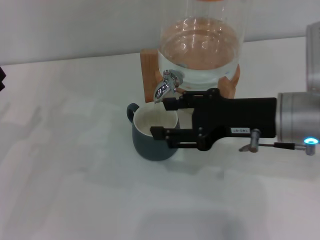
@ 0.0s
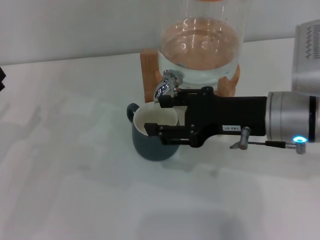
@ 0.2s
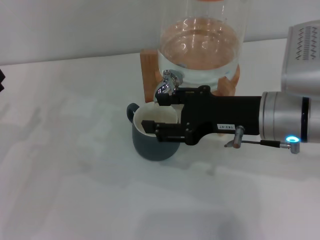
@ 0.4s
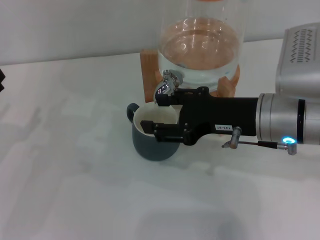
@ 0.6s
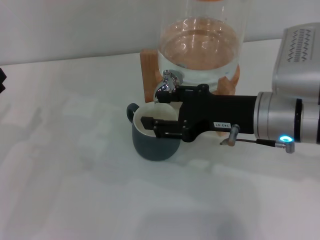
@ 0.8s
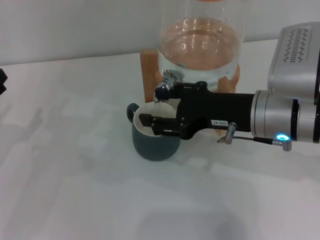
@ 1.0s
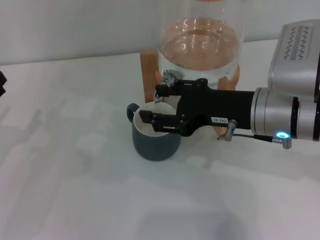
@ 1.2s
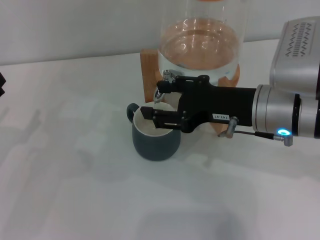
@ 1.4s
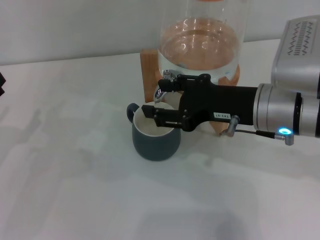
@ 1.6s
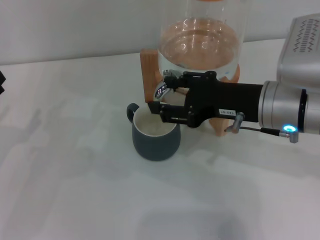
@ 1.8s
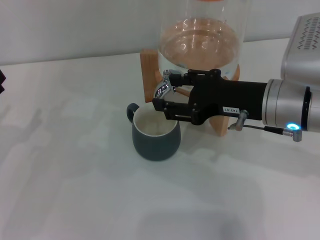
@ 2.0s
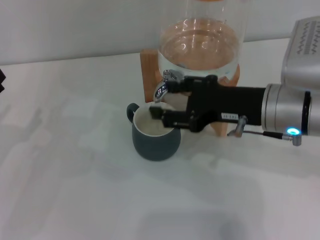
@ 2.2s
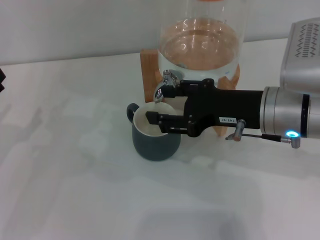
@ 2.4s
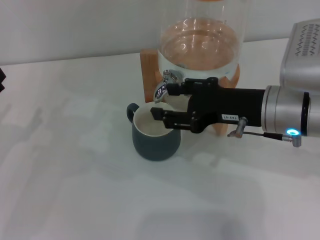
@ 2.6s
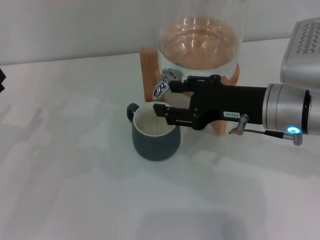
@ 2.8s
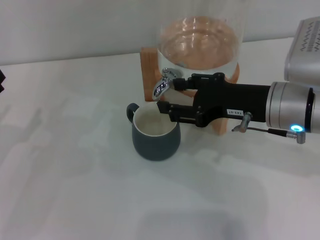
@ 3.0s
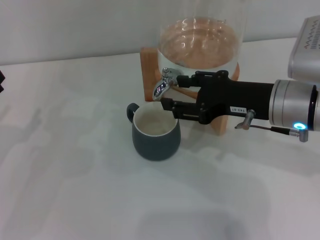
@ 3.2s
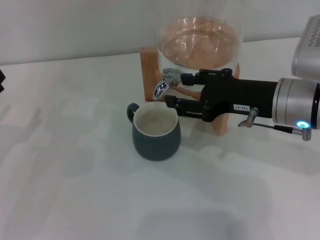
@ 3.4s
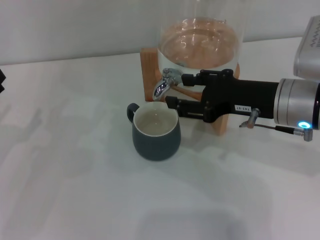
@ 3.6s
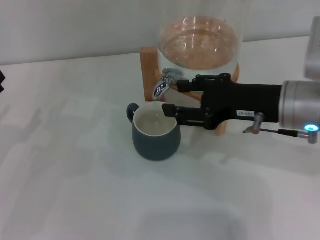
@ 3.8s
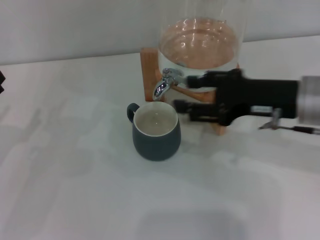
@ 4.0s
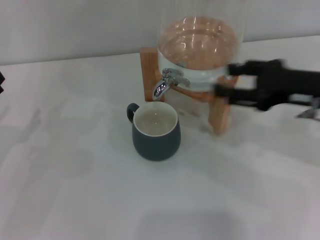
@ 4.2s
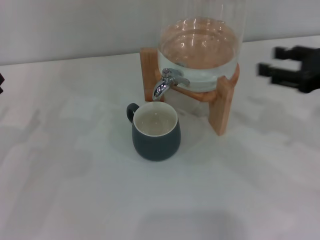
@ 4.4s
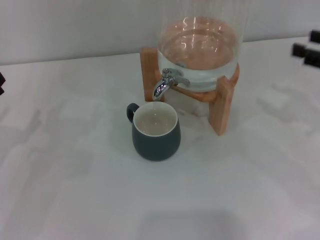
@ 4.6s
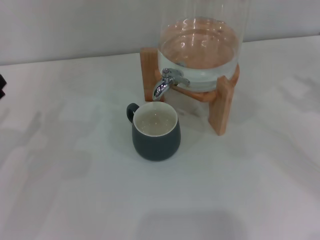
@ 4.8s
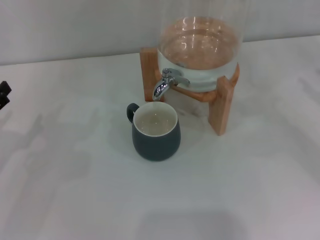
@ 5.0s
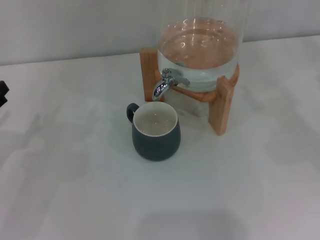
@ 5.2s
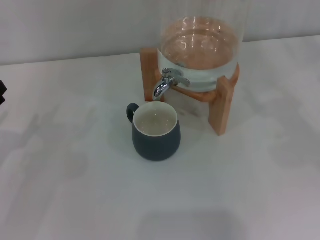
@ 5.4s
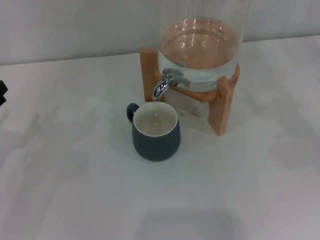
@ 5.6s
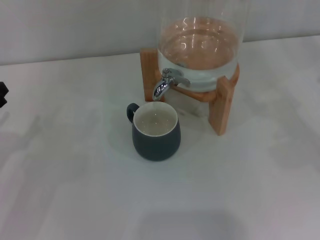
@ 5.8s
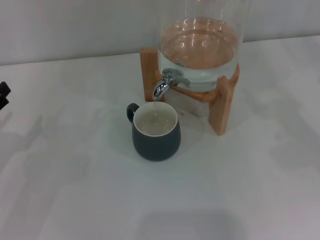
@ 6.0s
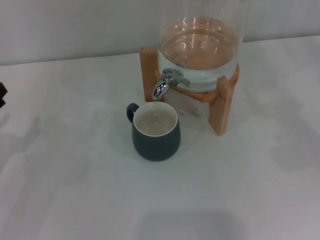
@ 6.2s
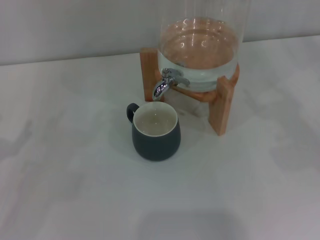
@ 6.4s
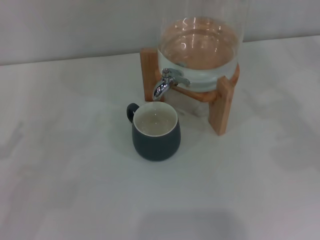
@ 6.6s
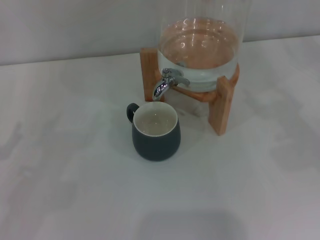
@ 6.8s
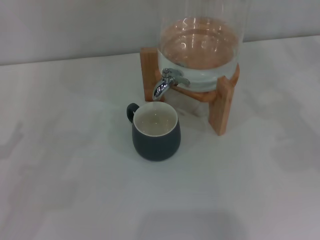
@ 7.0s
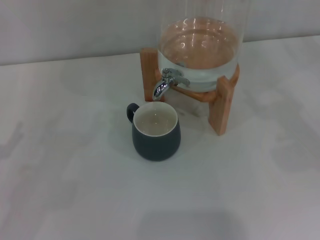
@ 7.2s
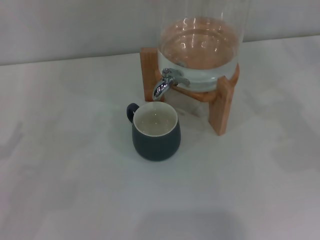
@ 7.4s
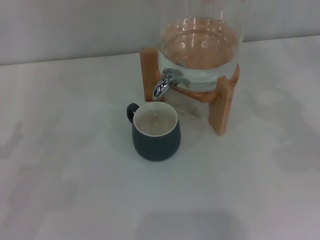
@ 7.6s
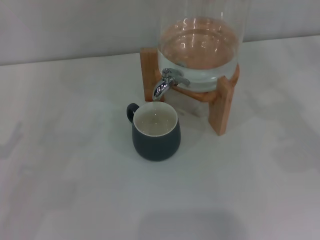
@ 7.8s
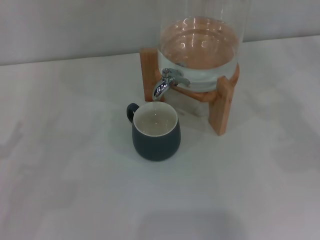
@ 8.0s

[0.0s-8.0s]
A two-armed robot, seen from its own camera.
Task of the whole recording: the left gripper pick up the black cup and place it horizontally under the faucet, the right gripper turn on the faucet to fill the cup, and then turn off the faucet.
Step, 0.0s to 4.0s: Close the dispenser valve with the right gripper.
0.0s to 3.2s: The grippers move only a little.
3.2s to 4.8s: The right gripper goes about 20 cm to the right.
4.8s to 6.4s: The right gripper shifts approximately 5 cm to the right.

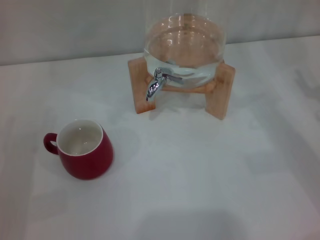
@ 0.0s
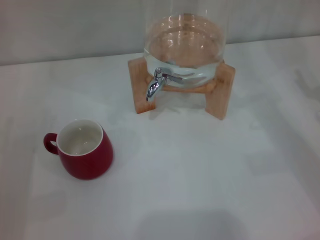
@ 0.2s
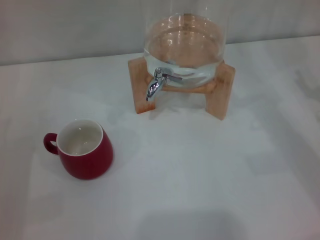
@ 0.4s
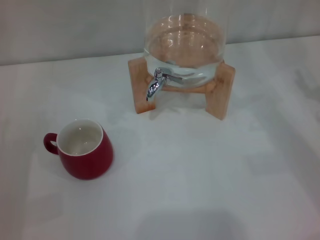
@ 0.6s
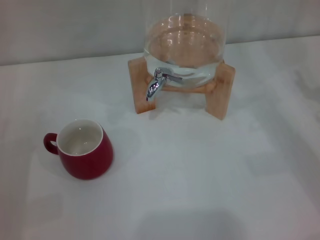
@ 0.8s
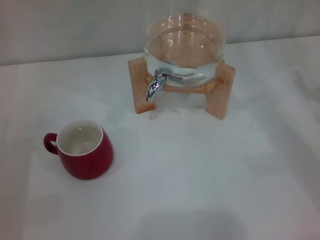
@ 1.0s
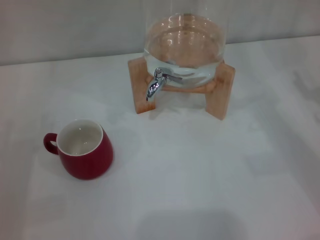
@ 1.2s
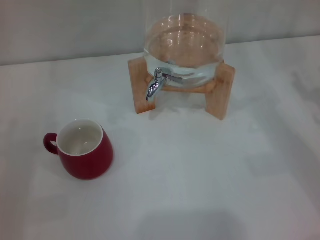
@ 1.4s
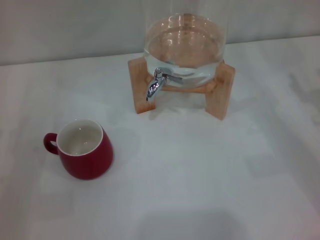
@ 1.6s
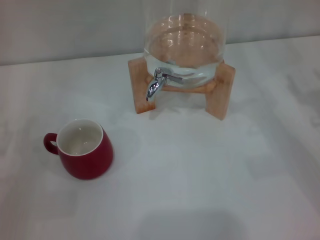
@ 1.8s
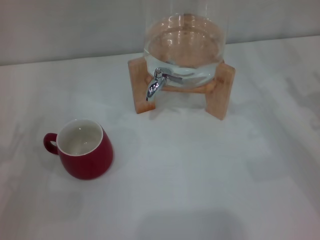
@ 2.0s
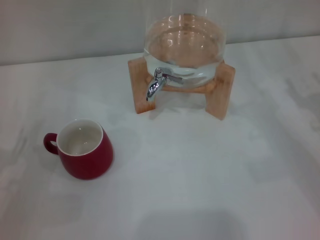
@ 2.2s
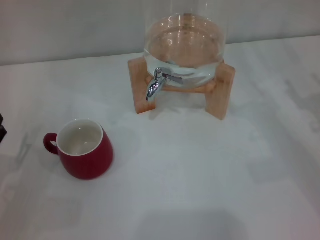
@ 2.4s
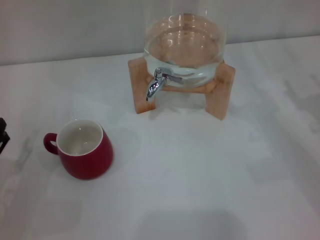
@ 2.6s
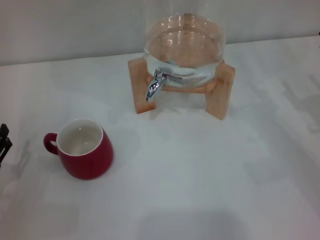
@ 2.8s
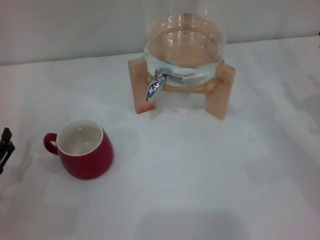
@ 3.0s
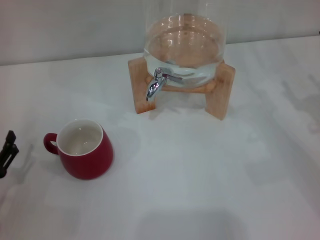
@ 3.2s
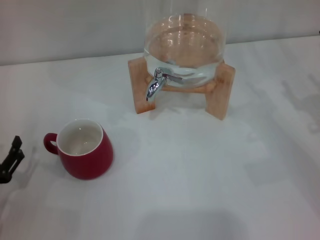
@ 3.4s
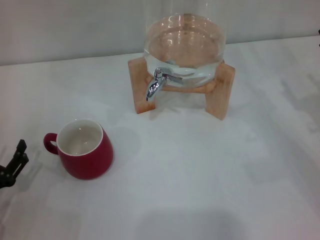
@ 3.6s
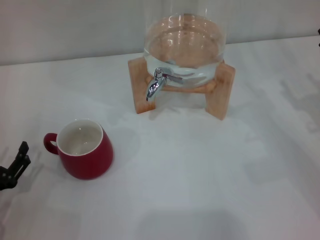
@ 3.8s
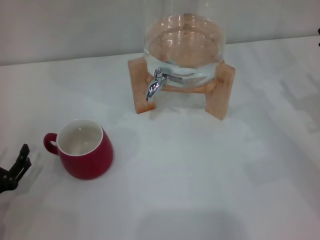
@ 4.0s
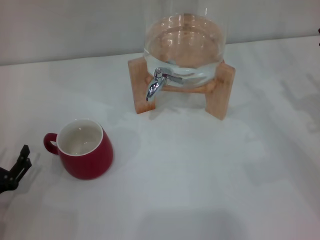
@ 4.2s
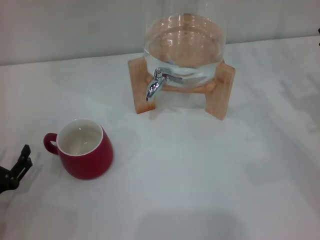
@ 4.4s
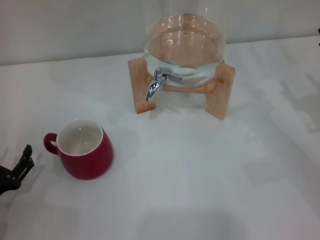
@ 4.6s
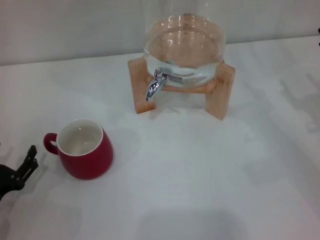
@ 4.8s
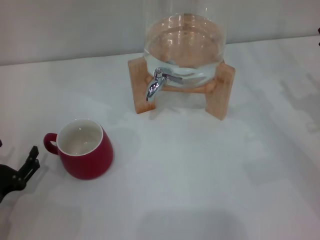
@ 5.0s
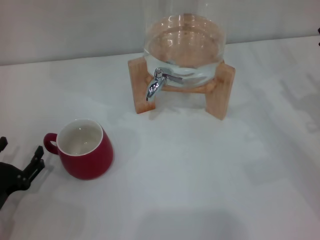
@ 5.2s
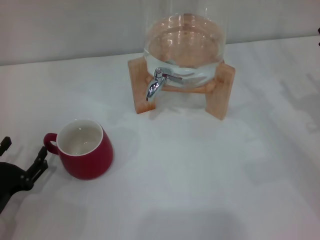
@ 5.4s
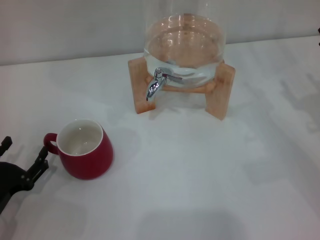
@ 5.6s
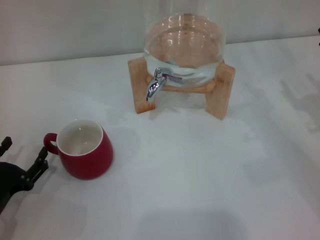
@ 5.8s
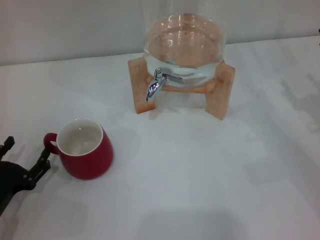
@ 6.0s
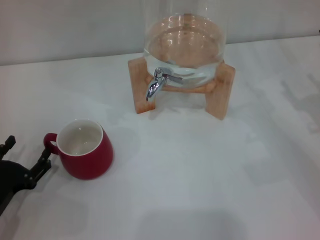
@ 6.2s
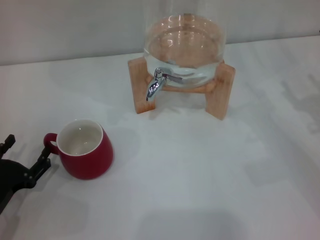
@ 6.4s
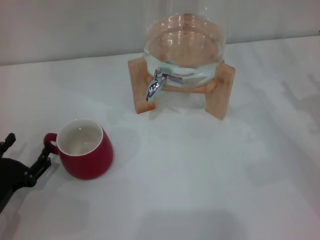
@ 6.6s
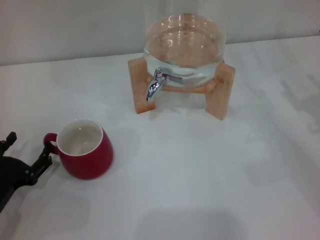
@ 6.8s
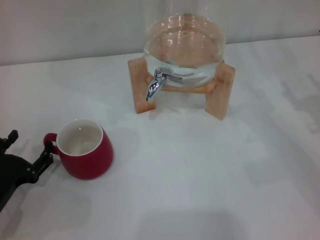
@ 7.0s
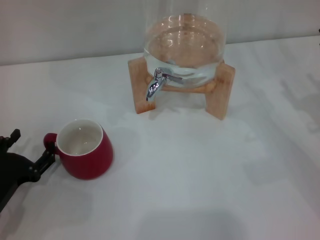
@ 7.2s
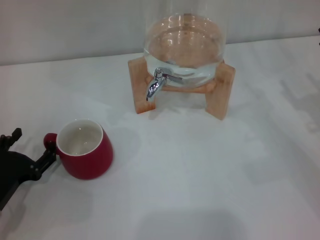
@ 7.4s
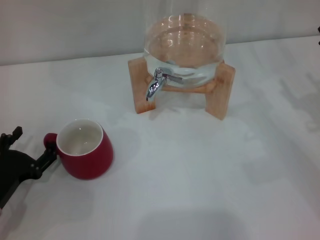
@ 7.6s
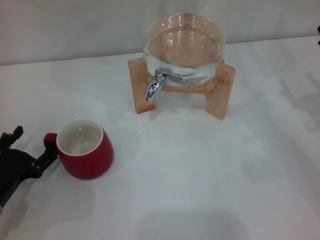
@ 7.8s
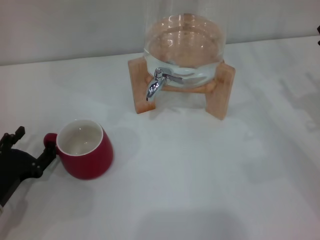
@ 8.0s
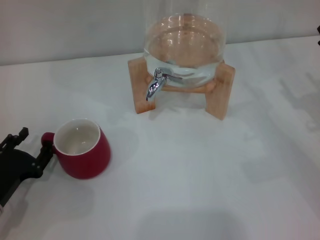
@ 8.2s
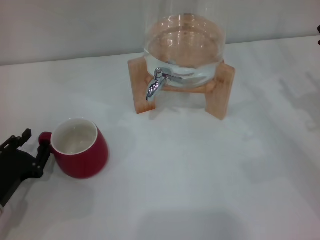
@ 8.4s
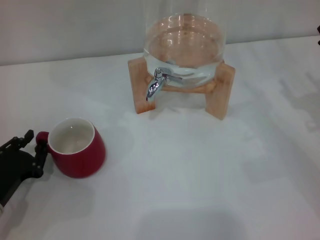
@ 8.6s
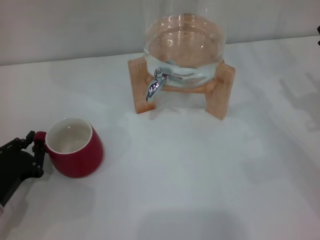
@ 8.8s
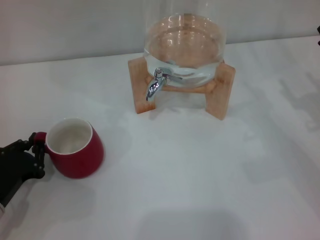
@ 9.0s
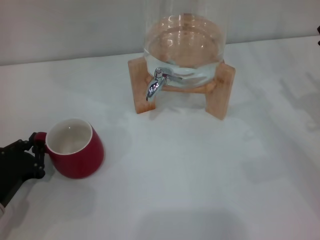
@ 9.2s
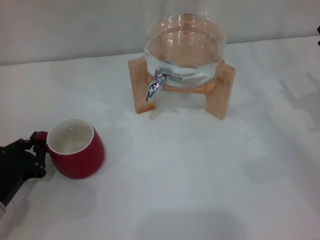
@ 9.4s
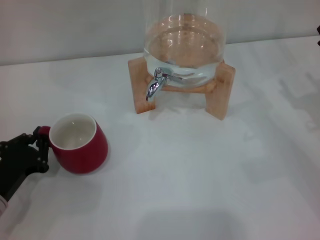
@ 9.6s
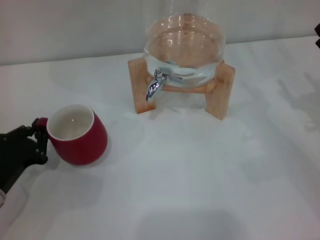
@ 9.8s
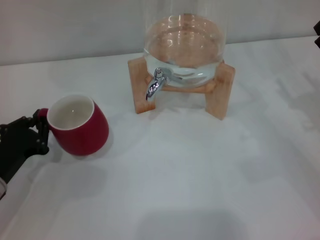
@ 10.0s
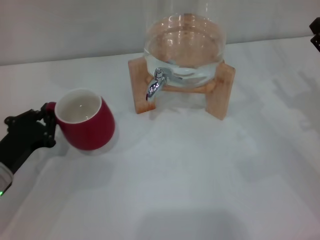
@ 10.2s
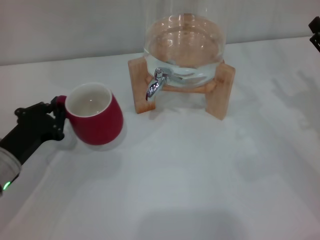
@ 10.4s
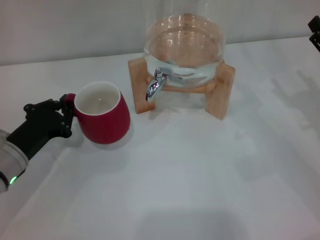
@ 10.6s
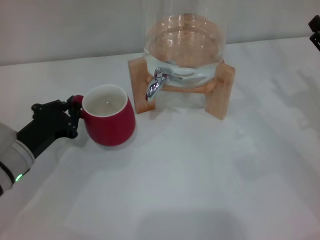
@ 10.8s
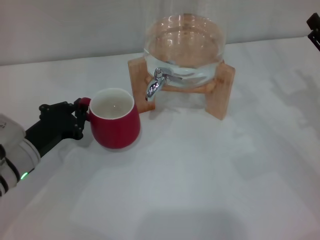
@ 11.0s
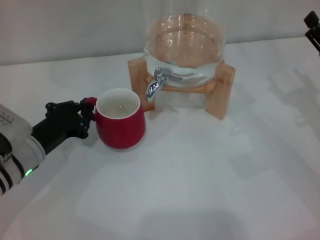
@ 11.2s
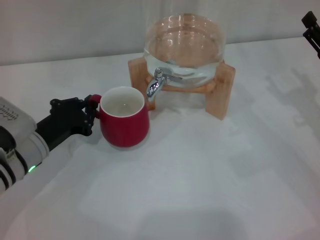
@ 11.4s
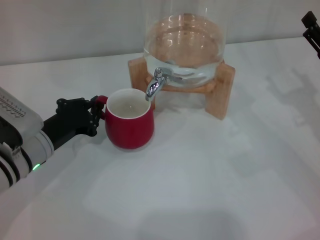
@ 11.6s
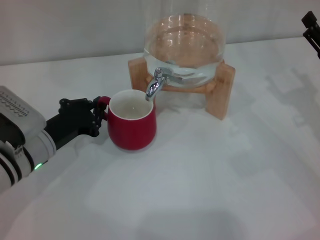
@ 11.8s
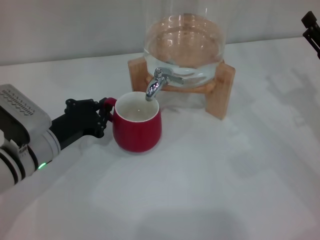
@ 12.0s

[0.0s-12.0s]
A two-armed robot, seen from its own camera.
Task of the whole recording: the left gripper pick up the red cup and place it horizontally under the faucet, the right gripper turn on the faucet to fill the cup, and then turn off the faucet.
3.0s to 7.6s: The grippers make only small movements.
7.6s to 9.0s: The left gripper closes.
9.0s to 10.4s: The left gripper shifts some 5 cm forward.
10.4s to 12.0s: The left gripper goes about 5 cm to the right.

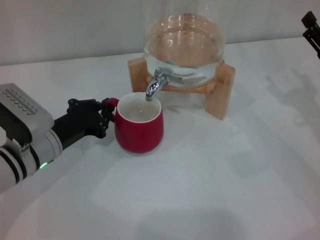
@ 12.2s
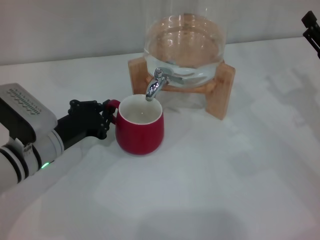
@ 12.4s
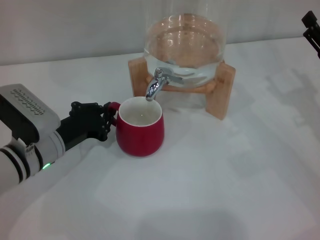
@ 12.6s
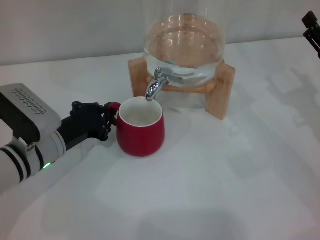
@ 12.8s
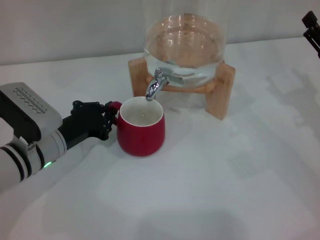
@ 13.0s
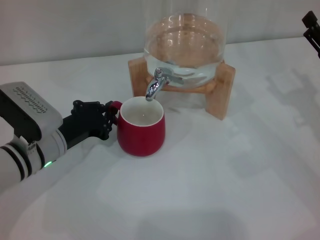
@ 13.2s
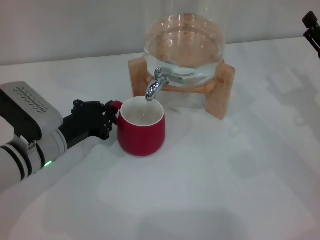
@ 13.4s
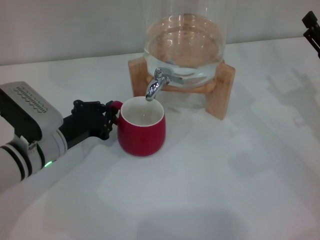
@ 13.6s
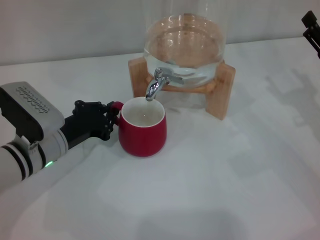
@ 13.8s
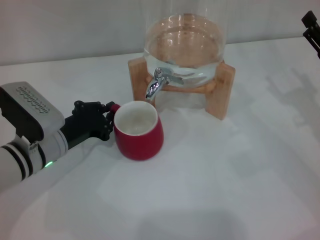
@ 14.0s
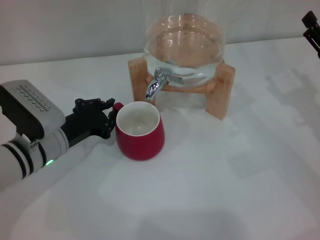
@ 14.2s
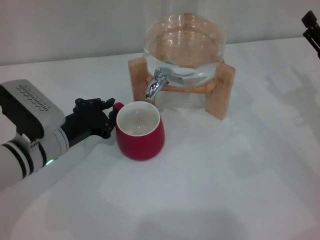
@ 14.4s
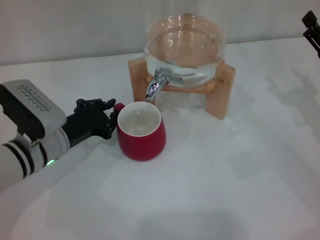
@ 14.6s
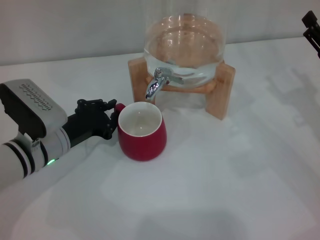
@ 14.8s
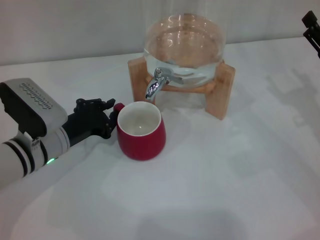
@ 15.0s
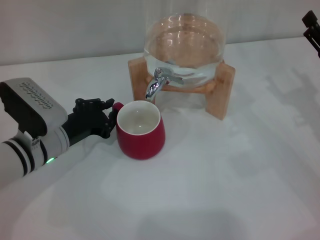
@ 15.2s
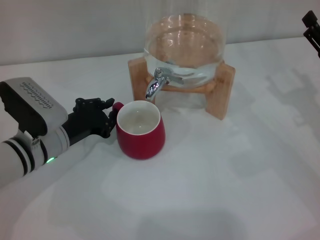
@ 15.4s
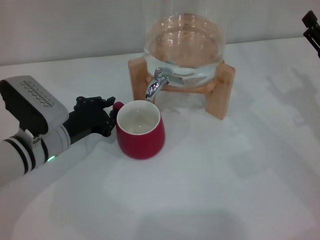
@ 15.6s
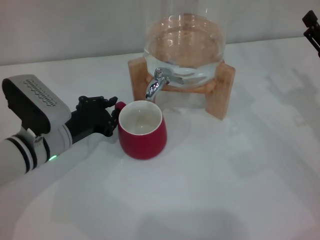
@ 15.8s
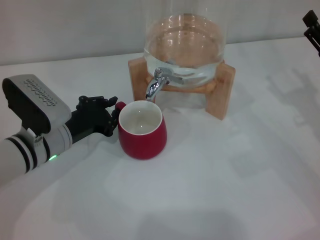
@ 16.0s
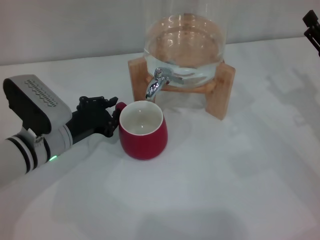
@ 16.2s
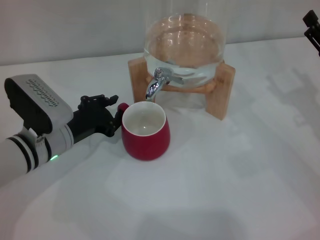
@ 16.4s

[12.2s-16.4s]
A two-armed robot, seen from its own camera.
Task of the whole recording: the left gripper pick up the red cup and place it horizontally under the faucet, the right gripper turn on the faucet to fill the cup, and then turn off the faucet.
12.2s to 15.0s: Both grippers stay put.
15.0s to 16.4s: Both grippers stay put.
